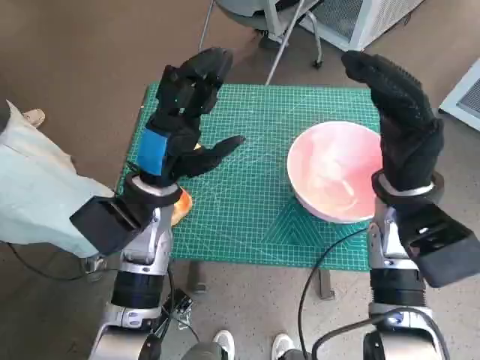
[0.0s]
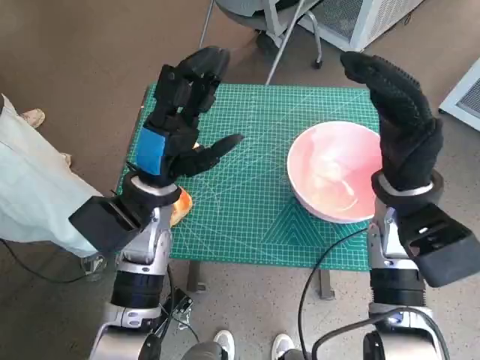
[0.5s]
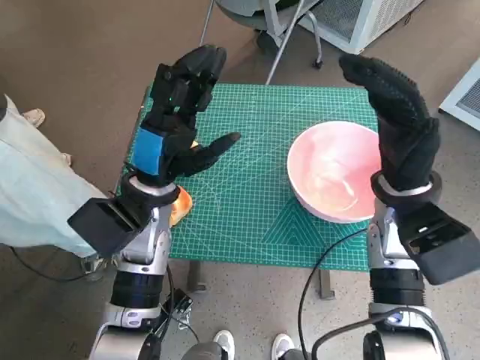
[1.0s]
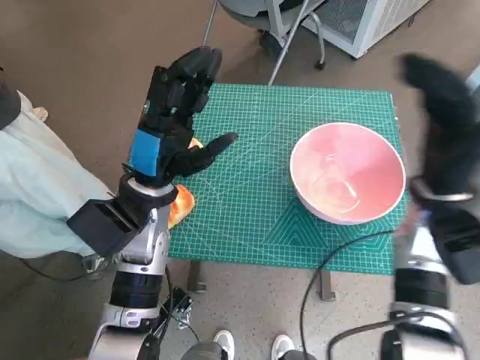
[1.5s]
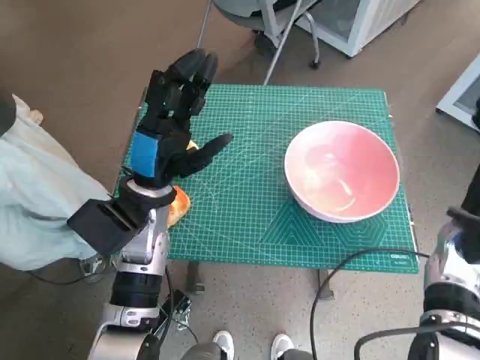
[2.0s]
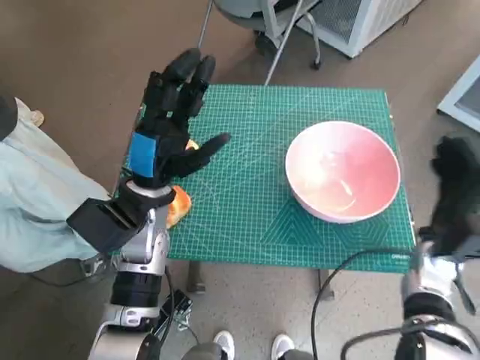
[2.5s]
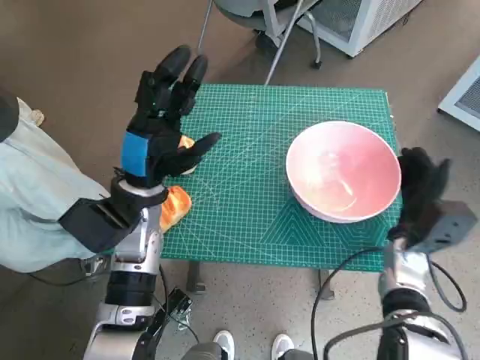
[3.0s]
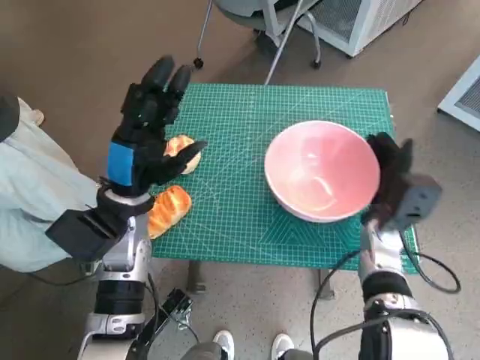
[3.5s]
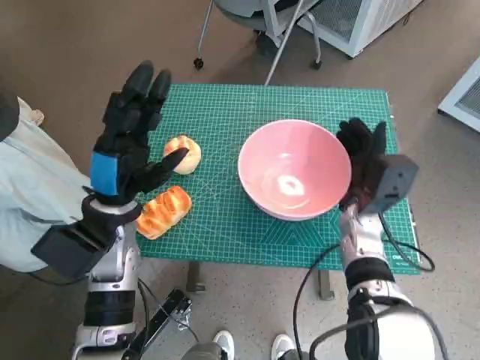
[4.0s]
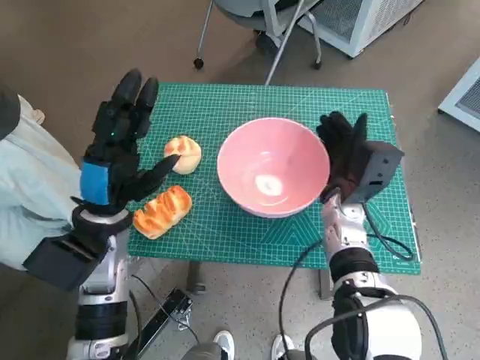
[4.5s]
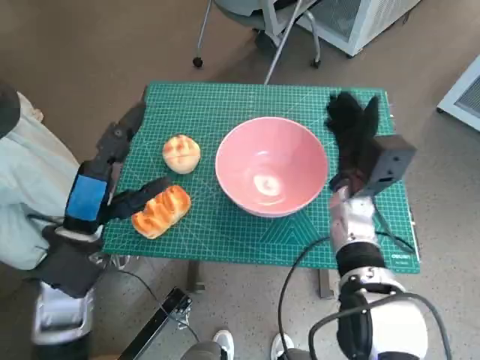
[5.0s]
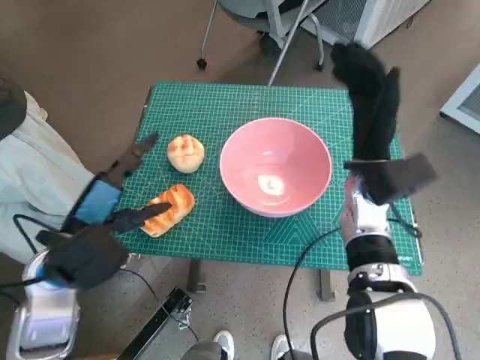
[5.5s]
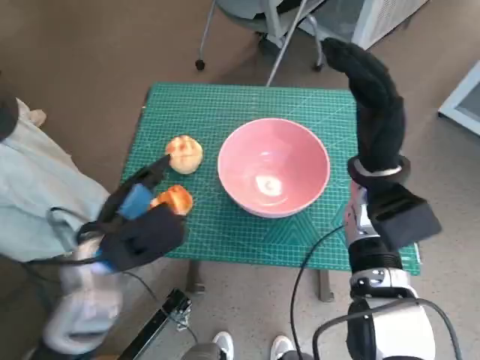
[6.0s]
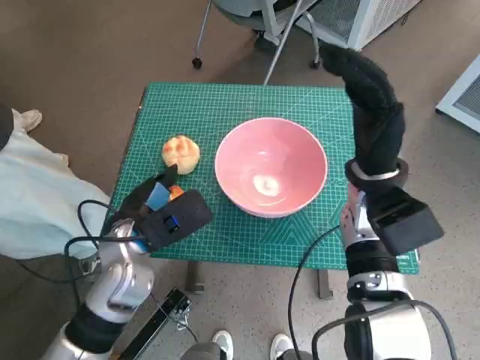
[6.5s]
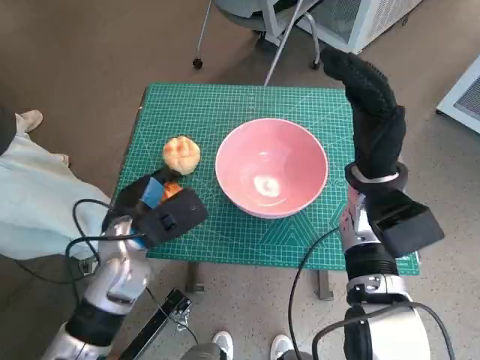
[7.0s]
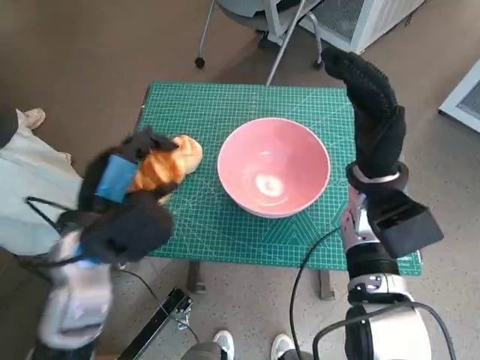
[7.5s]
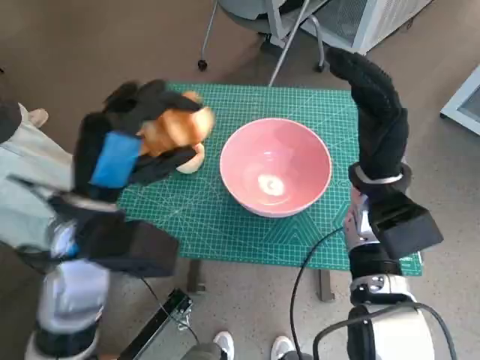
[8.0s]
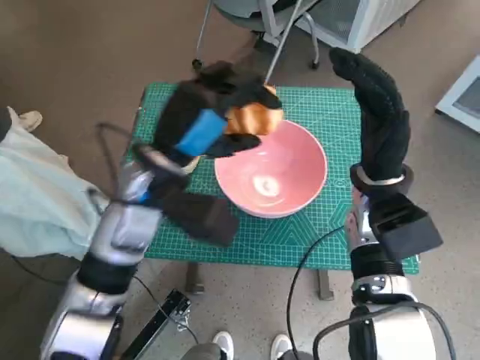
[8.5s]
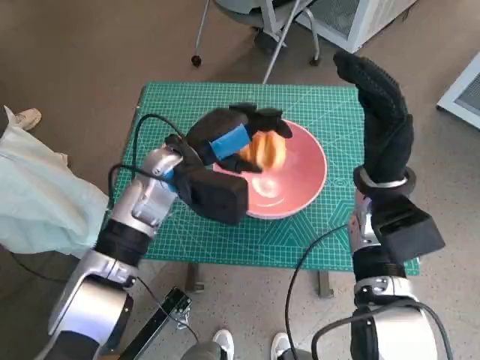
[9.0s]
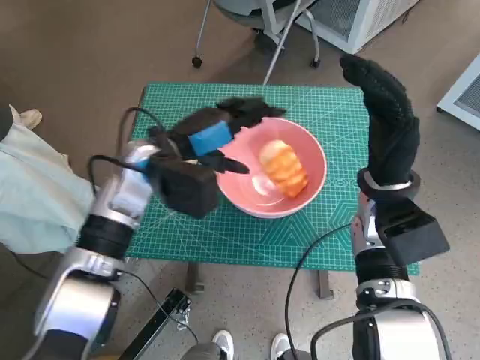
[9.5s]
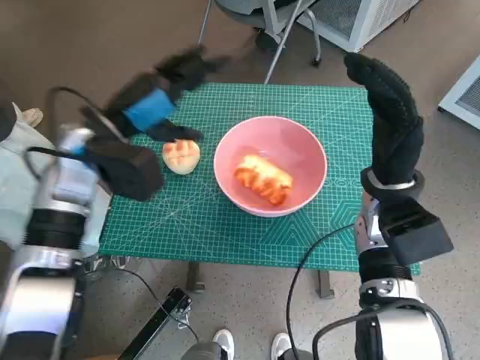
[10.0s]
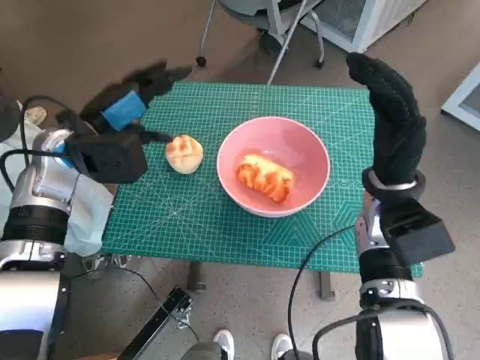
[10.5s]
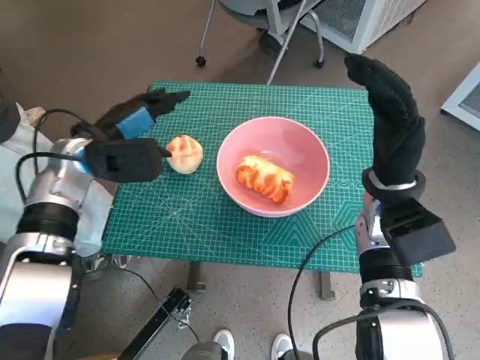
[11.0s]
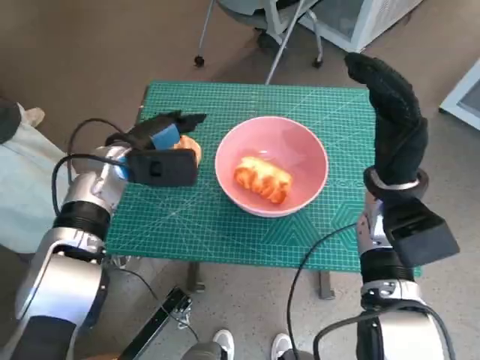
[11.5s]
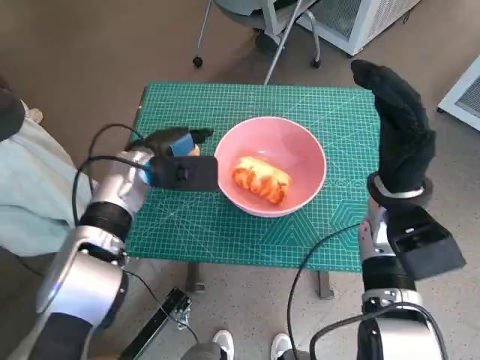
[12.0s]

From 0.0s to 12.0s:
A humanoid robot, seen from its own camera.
Task of the whole recording: Push the bowl to the center of the table and put the bread into the bowl.
Step, from 0.0s to 4.5s: Move the pink bowl to the center of table with right hand.
Step, from 5.5s to 6.5s: Grasp the long bread with left hand.
Step, from 7.0s to 9.0s: Place the long bread in pink bowl with left hand.
From 2.0s to 4.0s: The right hand travels to the left by roughly 10 cm.
From 4.0s to 6.0s: The right hand moves upward, approximately 10 cm. Meanwhile the left hand goes roughly 5 cm backward.
From 6.0s to 8.0s: The left hand shifts roughly 5 cm upward.
From 8.0s to 10.0s: The left hand moves forward, approximately 10 cm.
From 10.0s to 12.0s: The left hand is displaced downward by approximately 10 cm.

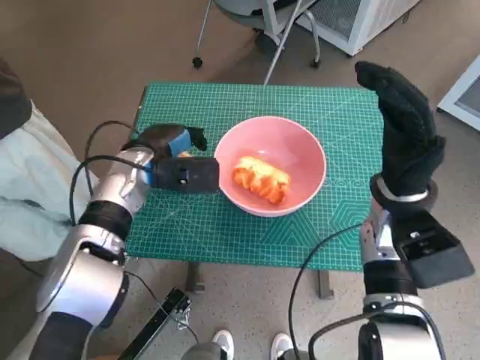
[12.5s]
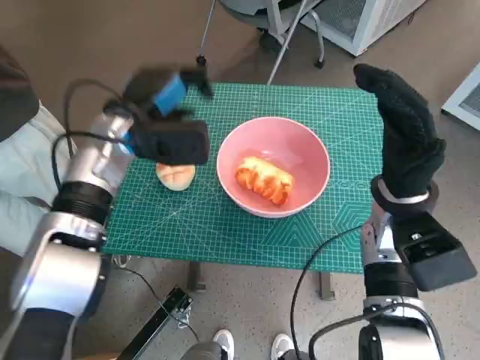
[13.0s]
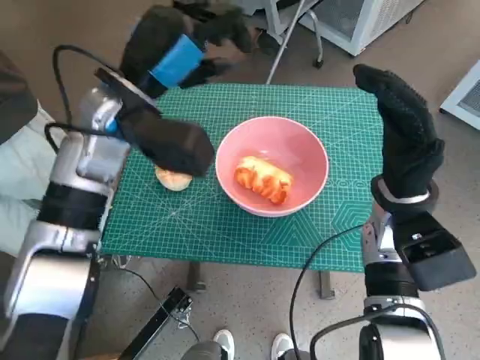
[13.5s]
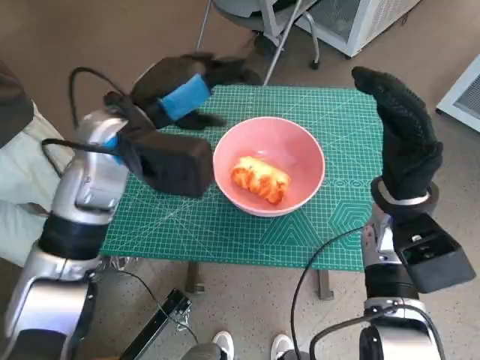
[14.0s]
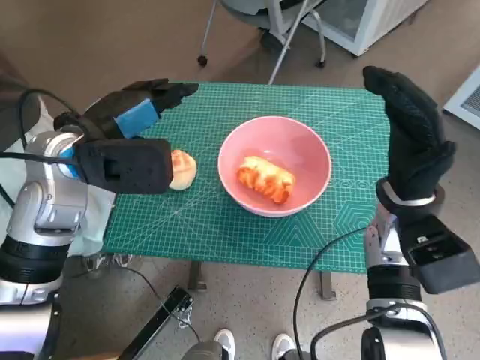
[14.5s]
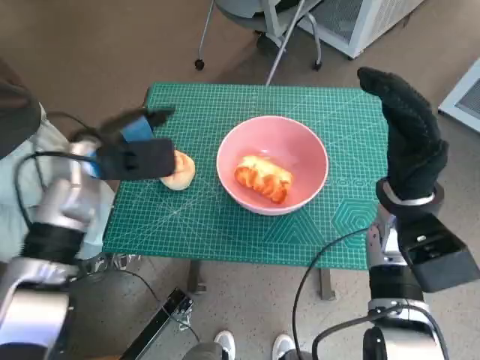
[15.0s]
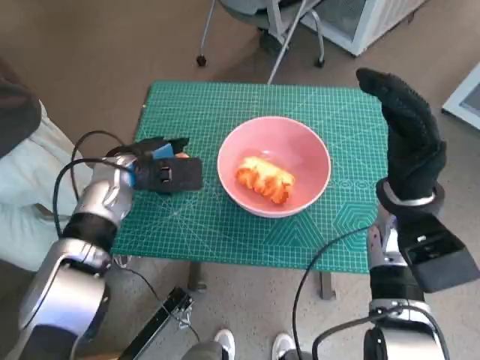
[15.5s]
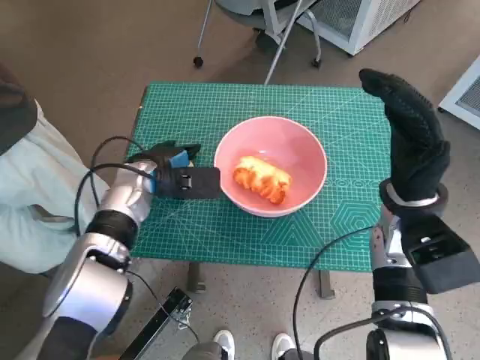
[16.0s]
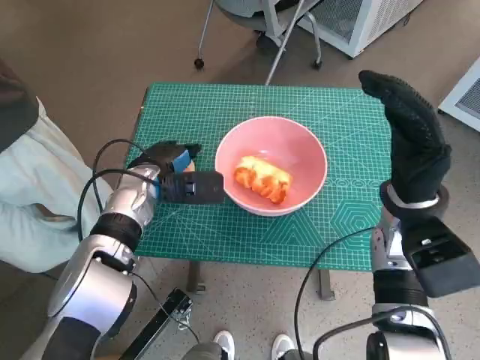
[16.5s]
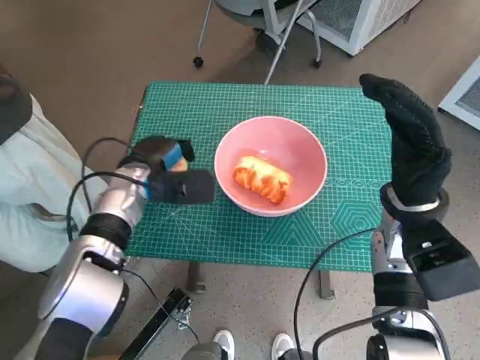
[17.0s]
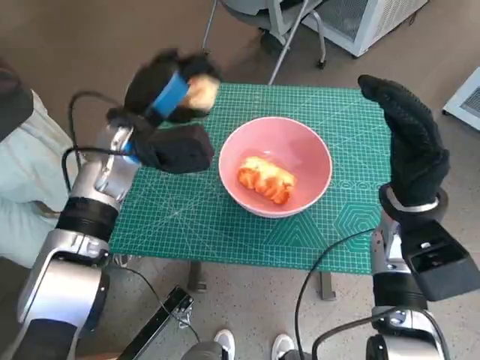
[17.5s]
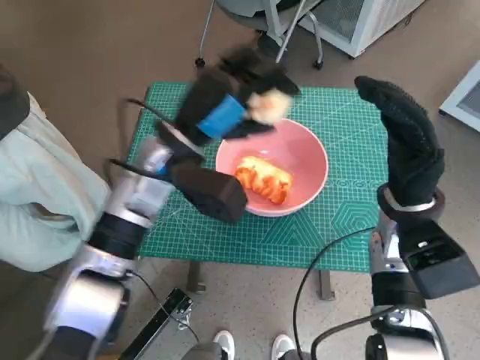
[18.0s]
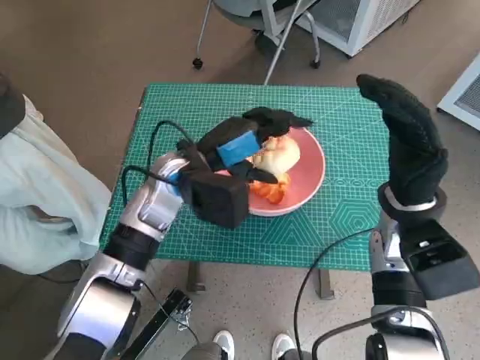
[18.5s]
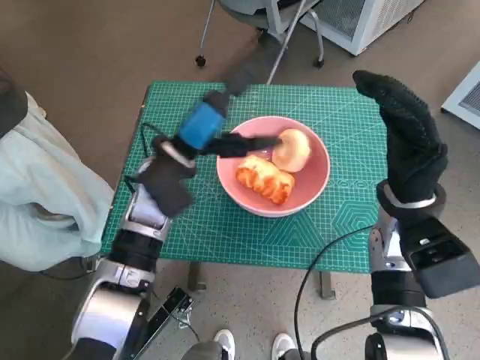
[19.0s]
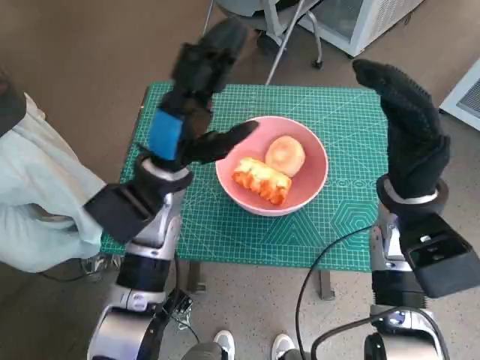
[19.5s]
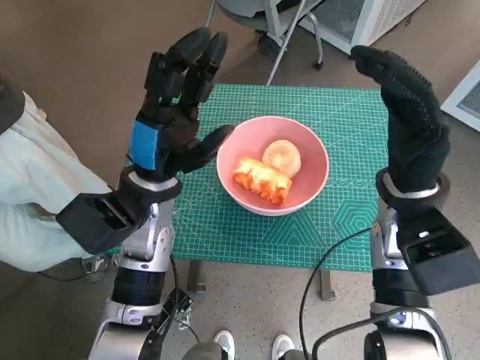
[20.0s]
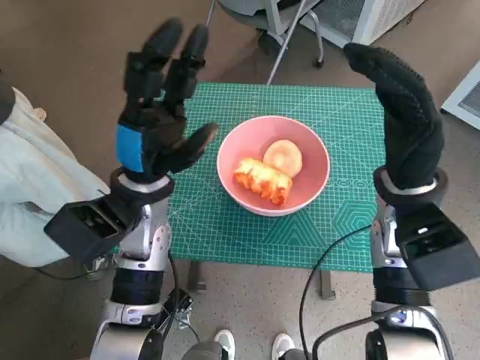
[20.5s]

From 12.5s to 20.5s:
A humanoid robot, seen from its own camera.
Task of the whole recording: Push the bowl to the center of the table and put the bread into the bowl.
Step, from 12.5s to 16.5s: Grasp the round bread with left hand.
Step, from 17.0s to 18.5s: Place the round bread in pink bowl with left hand.
From 12.5s to 14.5s: The left hand shifts about 15 cm upward and backward.
From 14.5s to 16.5s: The left hand is displaced downward by some 15 cm.
From 16.5s to 18.5s: The left hand heads to the right and upward, covering roughly 10 cm.
From 18.5s to 20.5s: The left hand changes place by some 5 cm.

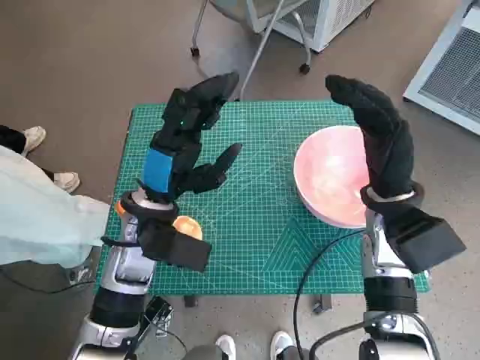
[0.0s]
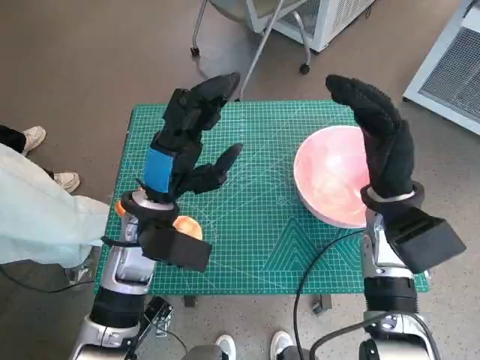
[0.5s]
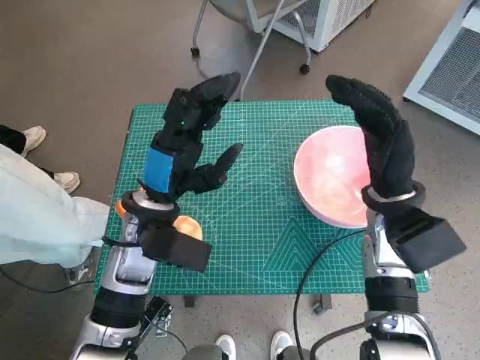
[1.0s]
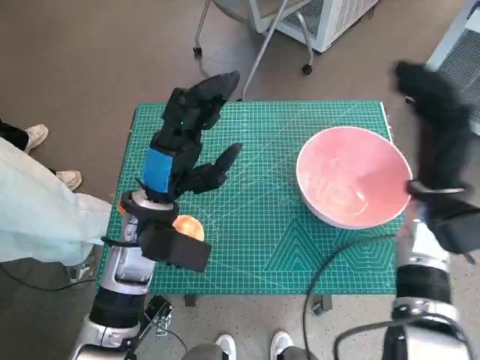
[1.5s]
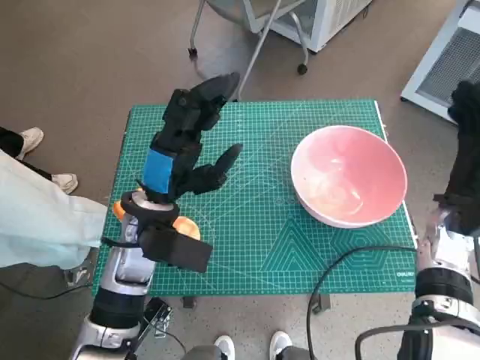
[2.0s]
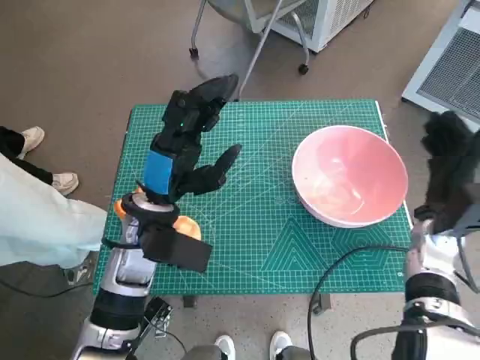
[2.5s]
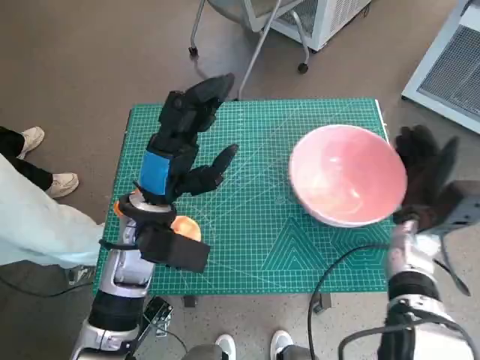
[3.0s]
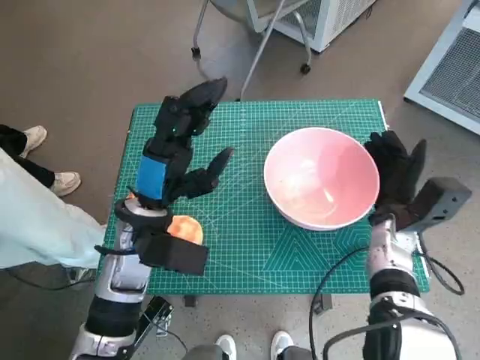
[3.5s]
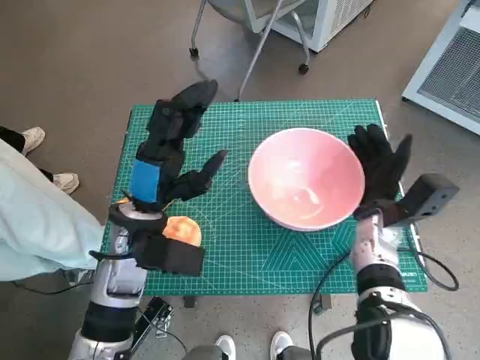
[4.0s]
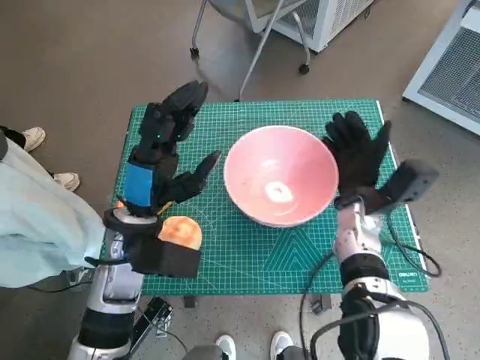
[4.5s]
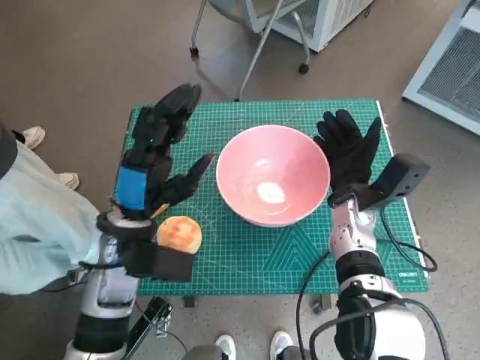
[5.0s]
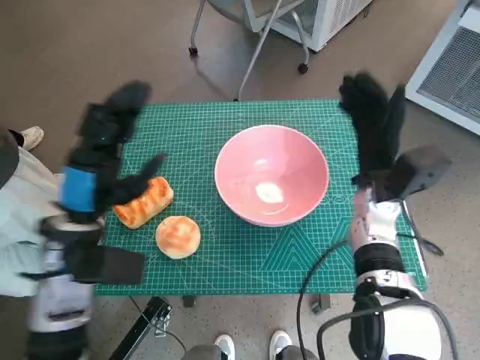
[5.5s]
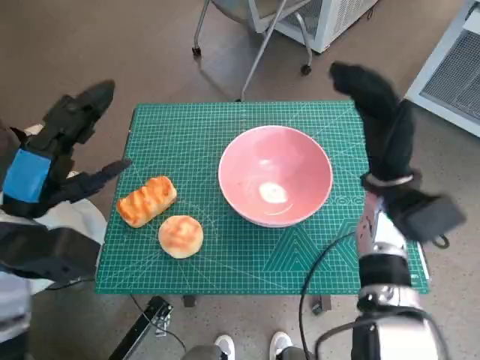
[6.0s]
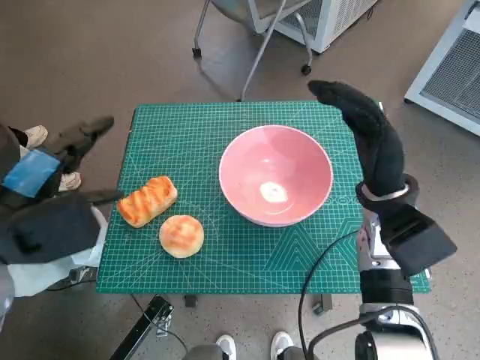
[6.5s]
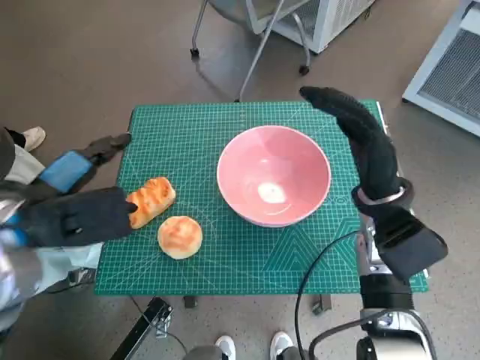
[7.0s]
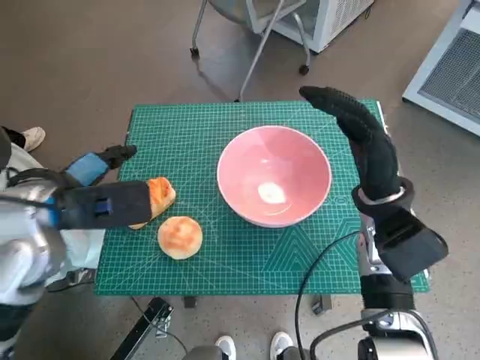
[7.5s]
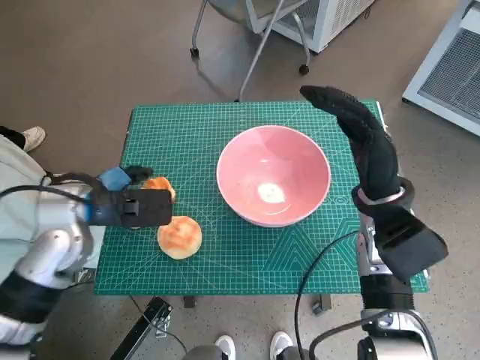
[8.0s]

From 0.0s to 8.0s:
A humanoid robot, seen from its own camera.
Task of the whole recording: Push the bowl to the center of the table and put the bread into the bowl.
Step, from 0.0s to 5.0s: Move the pink bowl to the center of table with right hand.
From 2.0s to 4.0s: The right hand goes about 10 cm to the left and downward.
From 4.0s to 6.0s: The left hand shifts some 10 cm to the left and upward. Meanwhile the right hand is displaced upward by roughly 10 cm.
From 6.0s to 8.0s: The left hand moves forward, some 5 cm.
